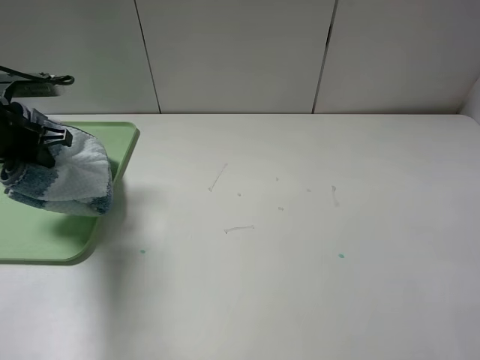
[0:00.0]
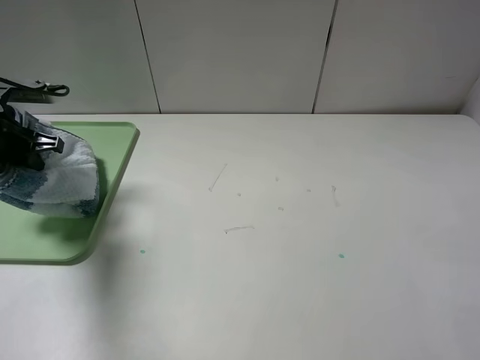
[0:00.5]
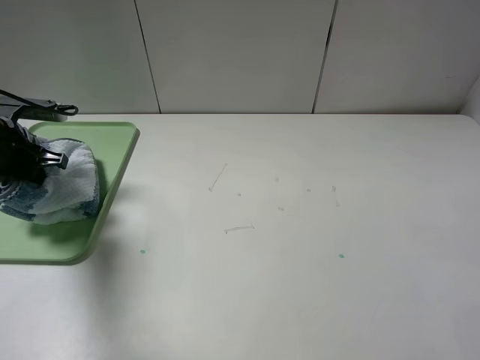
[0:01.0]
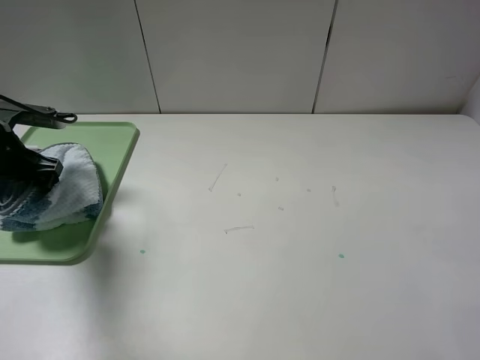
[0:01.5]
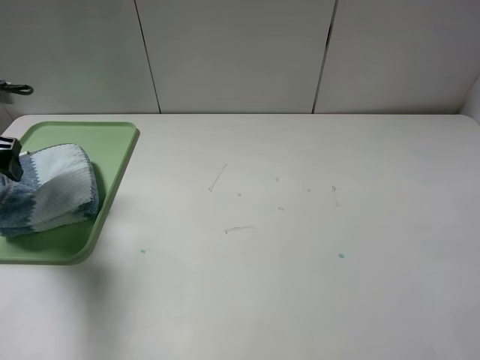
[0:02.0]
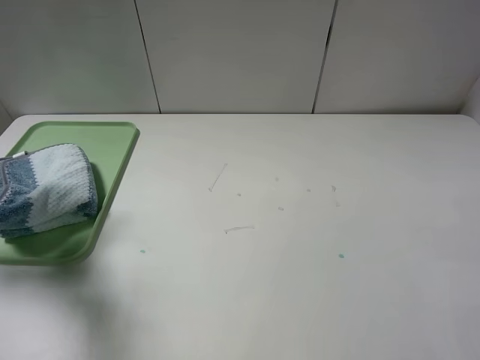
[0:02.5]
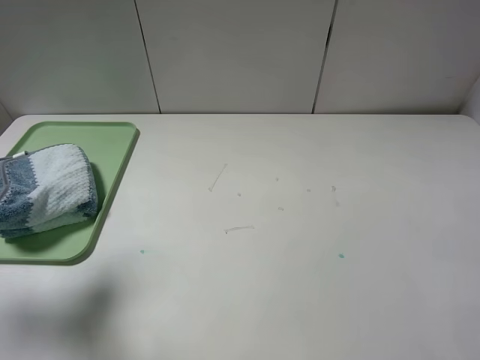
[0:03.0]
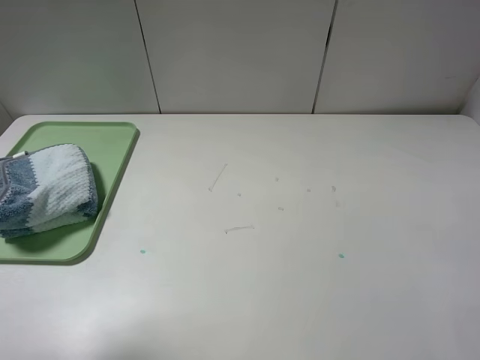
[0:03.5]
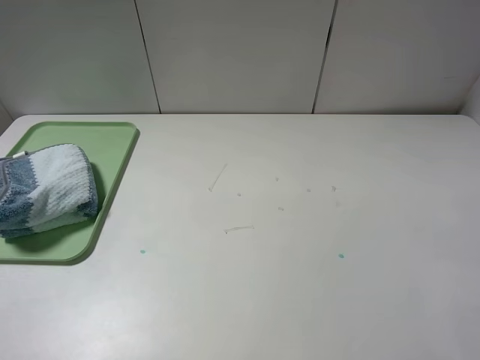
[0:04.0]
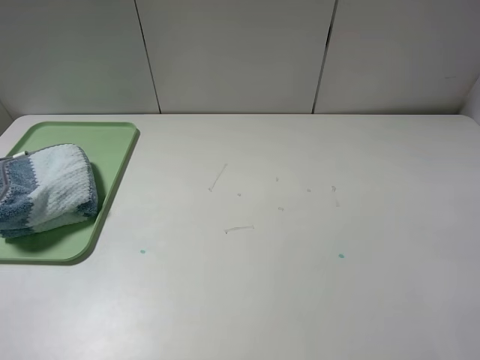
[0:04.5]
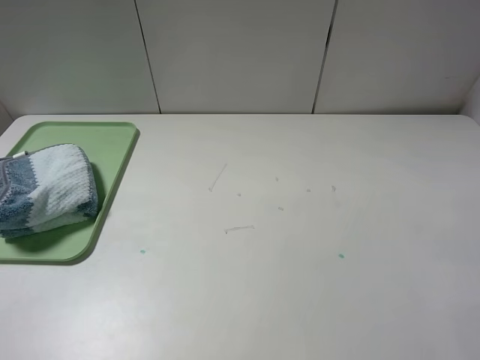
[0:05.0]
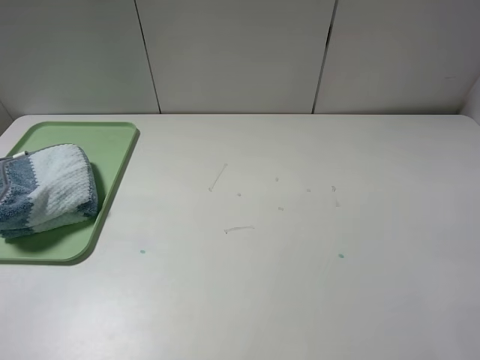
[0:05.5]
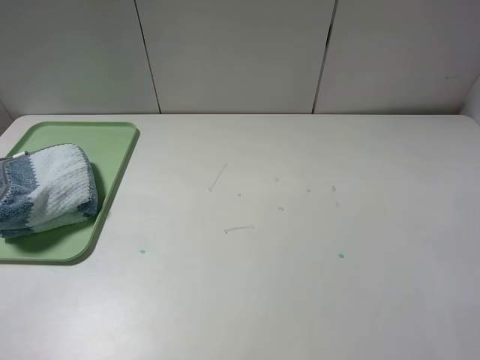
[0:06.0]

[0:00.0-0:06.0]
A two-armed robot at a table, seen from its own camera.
0:00.0 to 0:02.0: The left gripper moves roughly 5 cm, and opens up.
0:02.0 to 0:04.0: The left gripper heads backward and upward, covering some 30 cm.
